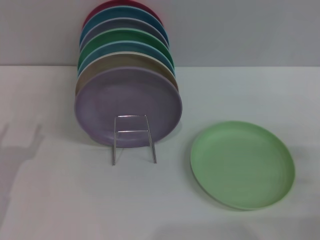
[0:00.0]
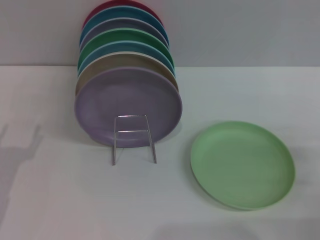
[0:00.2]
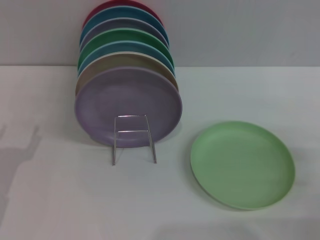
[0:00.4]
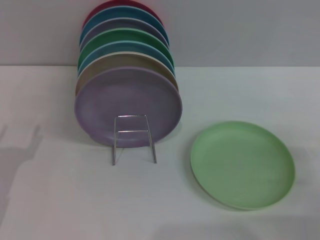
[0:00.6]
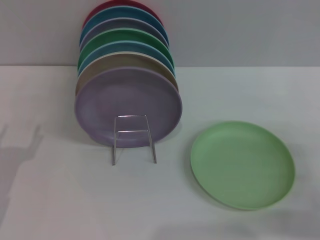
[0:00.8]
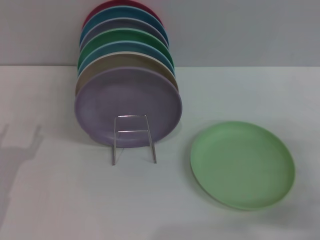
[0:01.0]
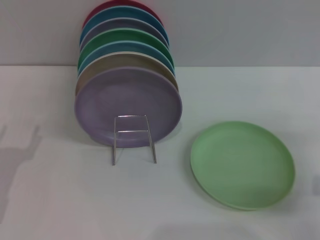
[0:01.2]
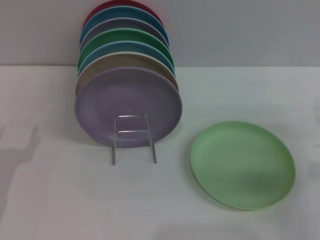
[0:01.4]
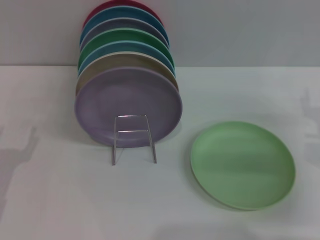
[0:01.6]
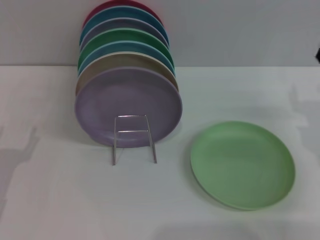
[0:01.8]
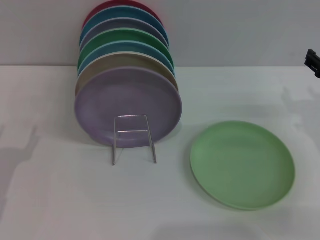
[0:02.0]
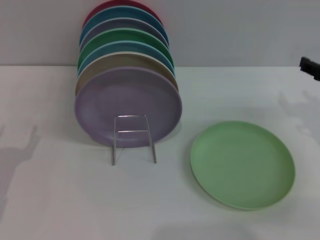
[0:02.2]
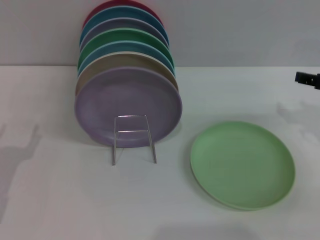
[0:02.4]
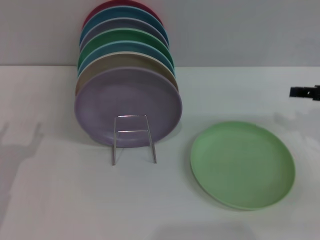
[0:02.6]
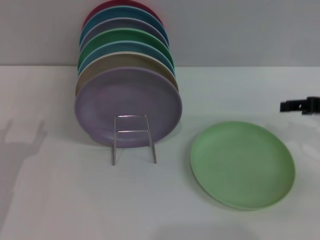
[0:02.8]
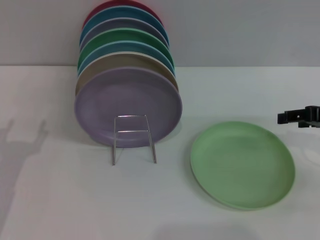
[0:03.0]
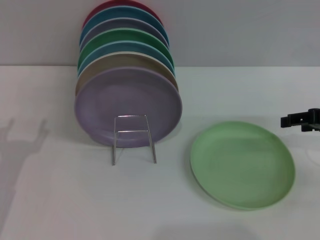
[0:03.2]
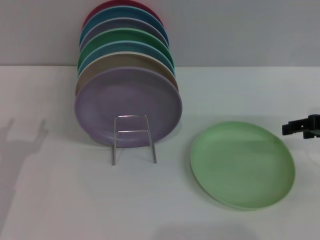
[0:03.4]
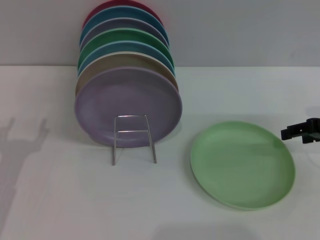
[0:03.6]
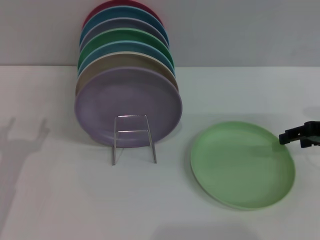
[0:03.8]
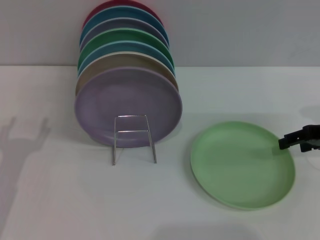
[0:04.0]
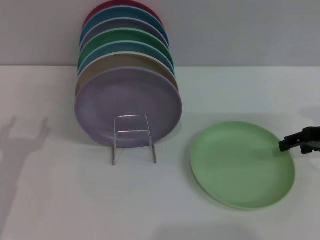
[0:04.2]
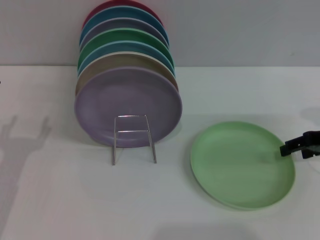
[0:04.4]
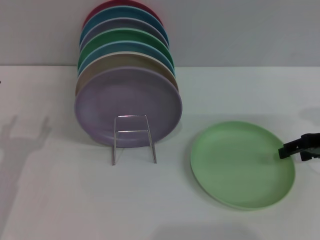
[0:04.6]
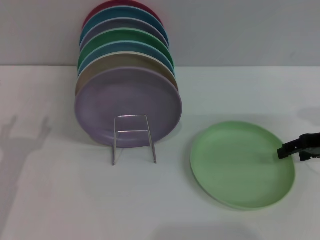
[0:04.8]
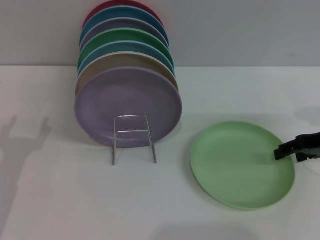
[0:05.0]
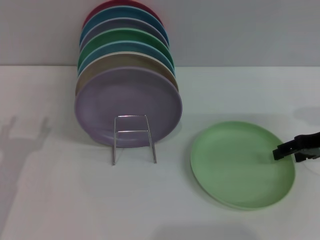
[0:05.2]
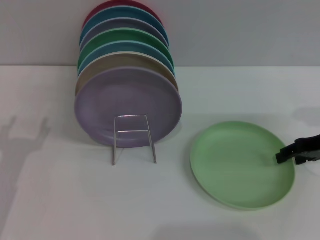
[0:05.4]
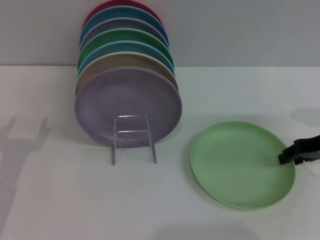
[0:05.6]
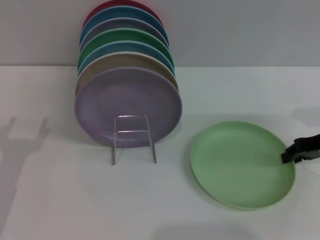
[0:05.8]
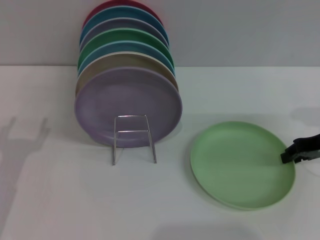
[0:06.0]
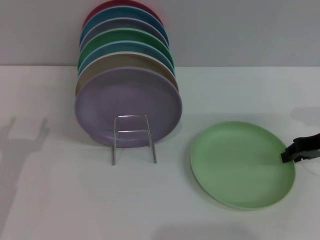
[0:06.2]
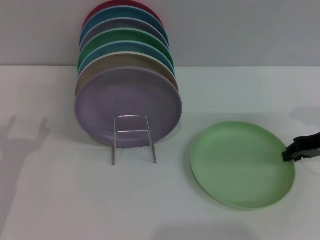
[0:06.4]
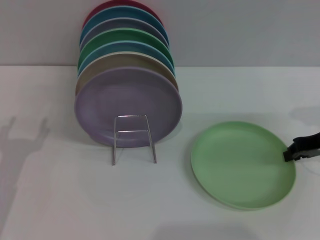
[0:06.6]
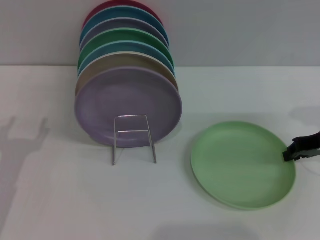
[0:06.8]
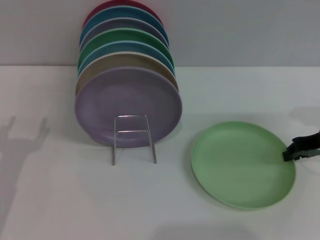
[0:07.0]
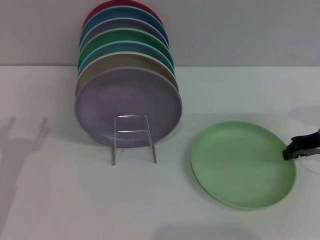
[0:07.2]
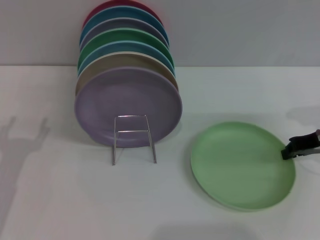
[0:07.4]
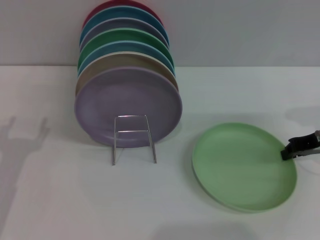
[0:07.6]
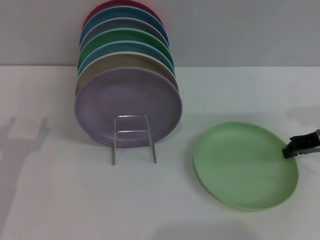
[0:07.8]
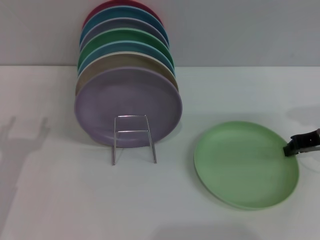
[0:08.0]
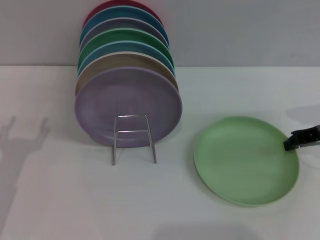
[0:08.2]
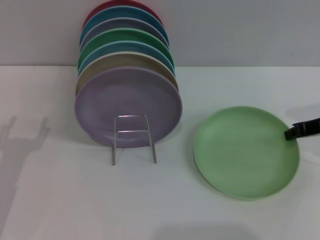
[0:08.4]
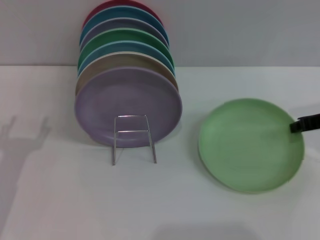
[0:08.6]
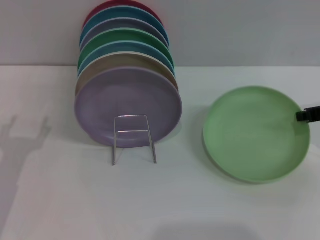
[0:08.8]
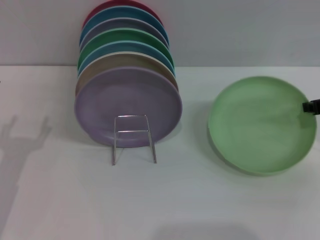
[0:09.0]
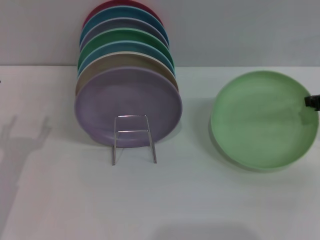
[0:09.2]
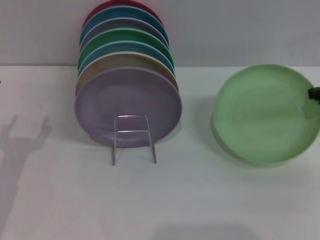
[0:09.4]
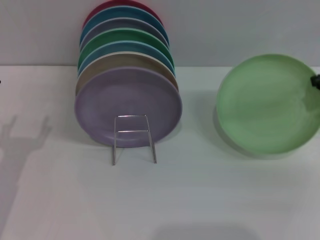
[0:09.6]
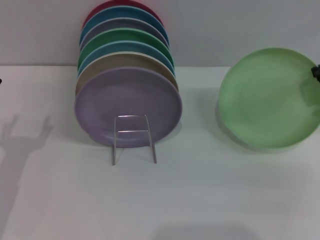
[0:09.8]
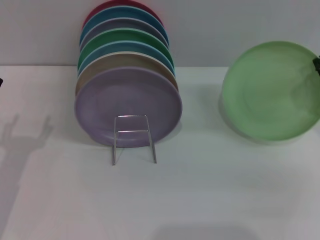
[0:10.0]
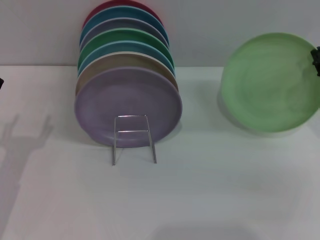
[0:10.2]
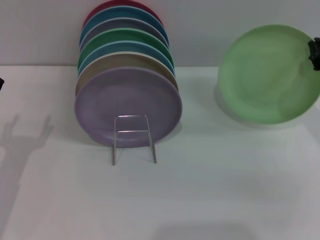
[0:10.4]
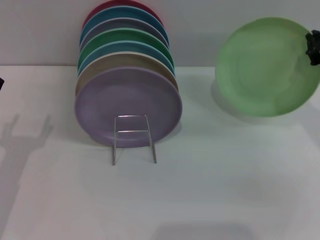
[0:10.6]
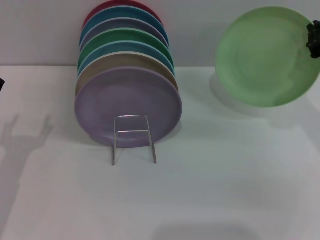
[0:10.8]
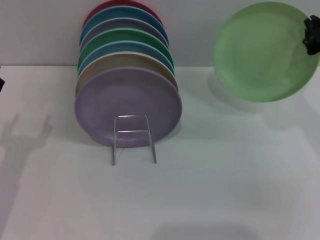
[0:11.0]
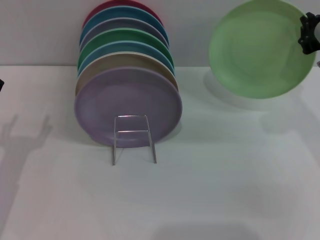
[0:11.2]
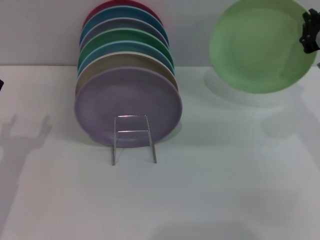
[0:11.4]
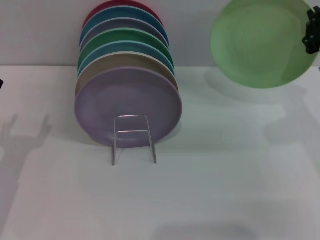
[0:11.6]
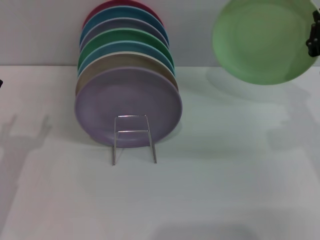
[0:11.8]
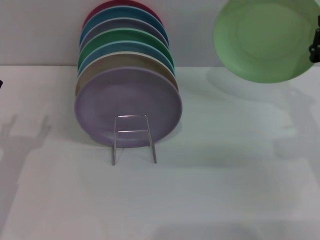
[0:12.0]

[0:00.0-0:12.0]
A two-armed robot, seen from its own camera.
Task of the whole recording: Grip the plate with one hand, pass it to the other, then set it on the shelf.
Step, 0:00.0 to 0:10.0: Pick up the plate with the right gripper.
0:00.0 to 0:01.6: The right gripper shifts about 10 cm forward.
0:01.6 to 0:03.0: The right gripper is displaced upward by roughly 5 cm.
0:03.0 to 0:04.4: The grippers stay close to where they were, moving slightly.
0:04.4 to 0:06.0: The right gripper closes its fingers.
0:06.0 to 0:07.6: Neither gripper changes place.
0:10.4 to 0:12.0: The right gripper moves downward, roughly 5 cm.

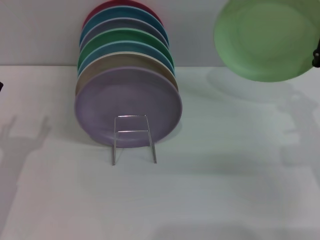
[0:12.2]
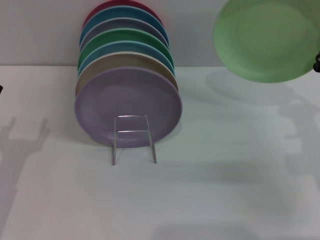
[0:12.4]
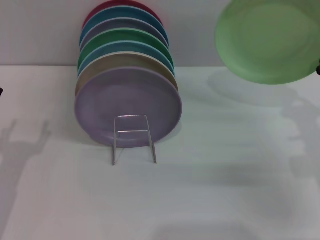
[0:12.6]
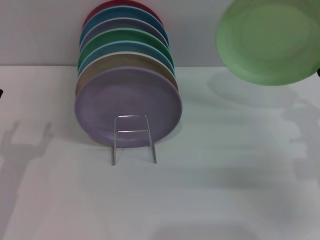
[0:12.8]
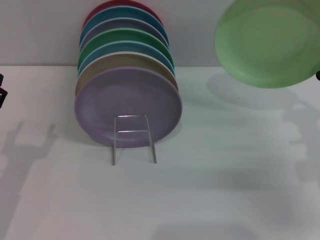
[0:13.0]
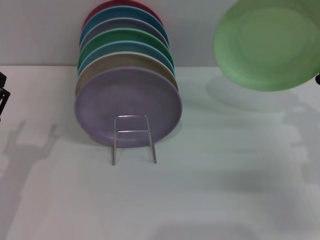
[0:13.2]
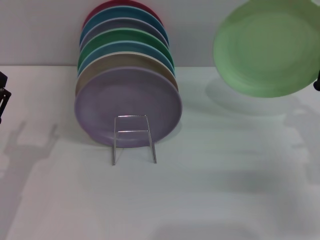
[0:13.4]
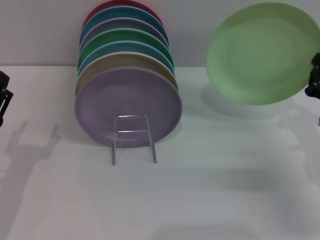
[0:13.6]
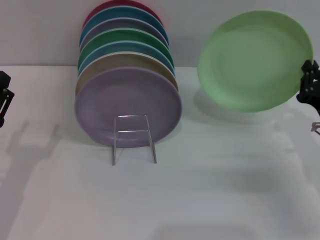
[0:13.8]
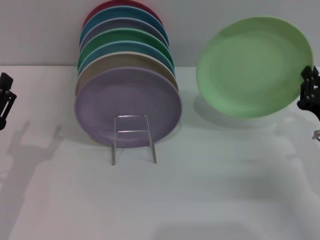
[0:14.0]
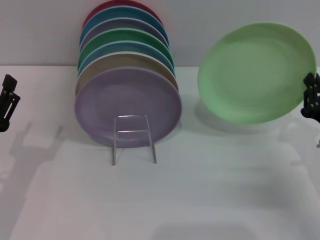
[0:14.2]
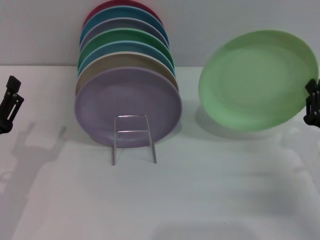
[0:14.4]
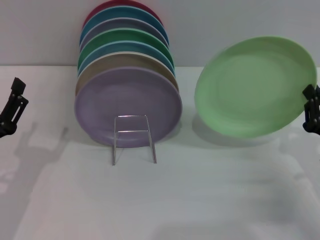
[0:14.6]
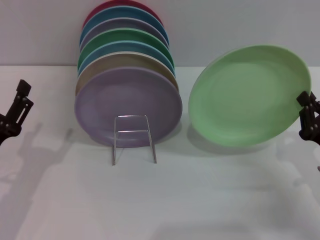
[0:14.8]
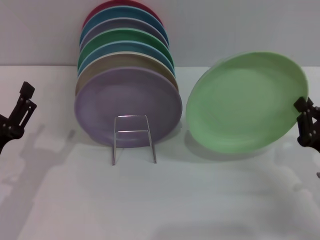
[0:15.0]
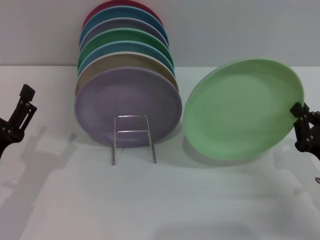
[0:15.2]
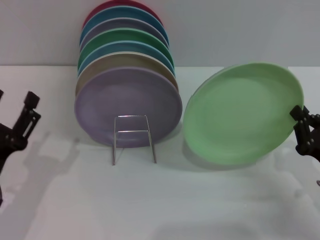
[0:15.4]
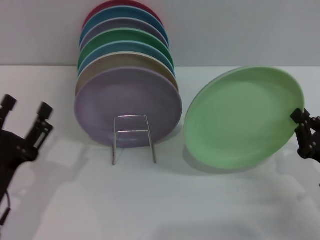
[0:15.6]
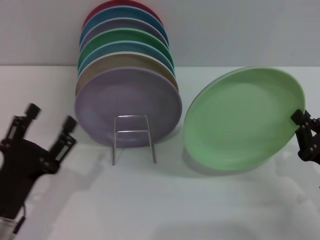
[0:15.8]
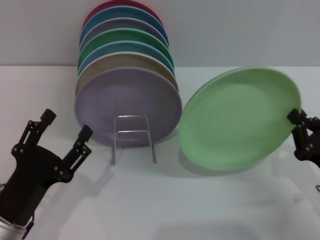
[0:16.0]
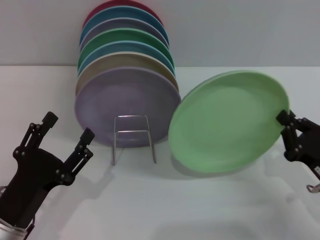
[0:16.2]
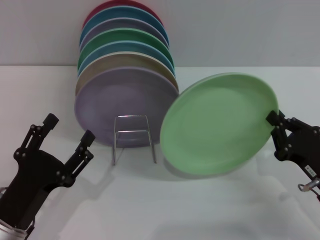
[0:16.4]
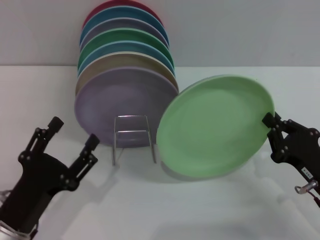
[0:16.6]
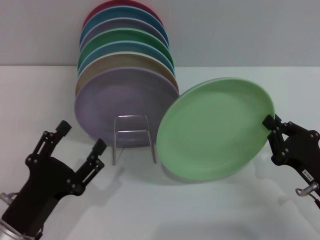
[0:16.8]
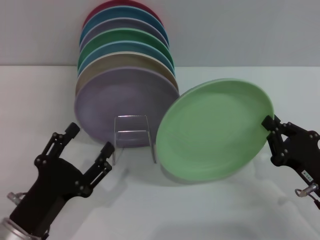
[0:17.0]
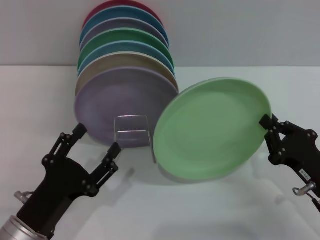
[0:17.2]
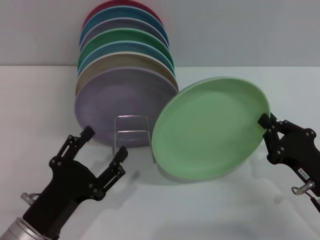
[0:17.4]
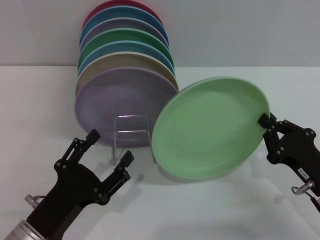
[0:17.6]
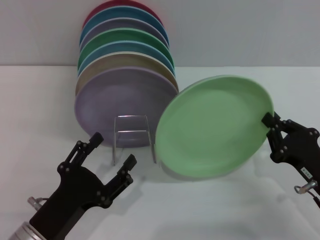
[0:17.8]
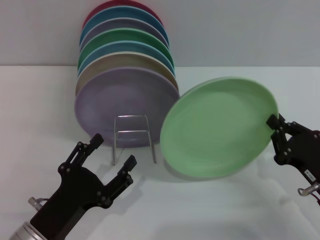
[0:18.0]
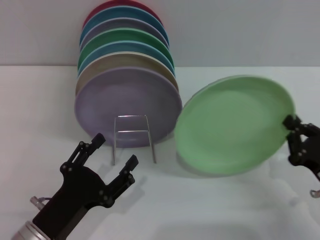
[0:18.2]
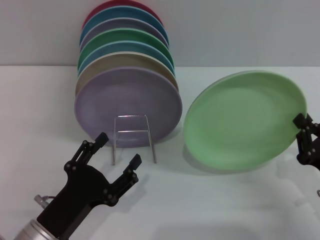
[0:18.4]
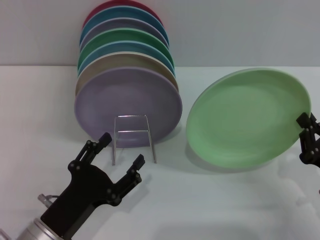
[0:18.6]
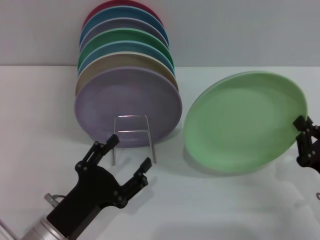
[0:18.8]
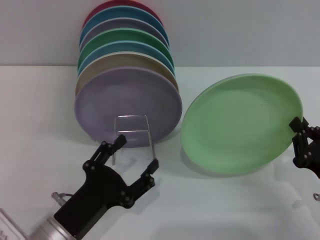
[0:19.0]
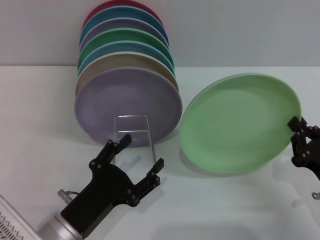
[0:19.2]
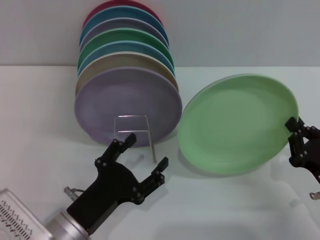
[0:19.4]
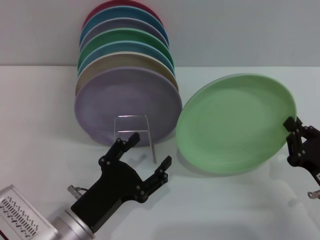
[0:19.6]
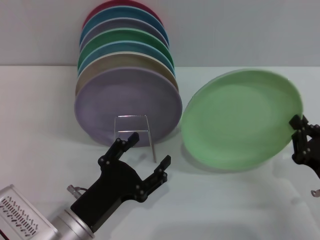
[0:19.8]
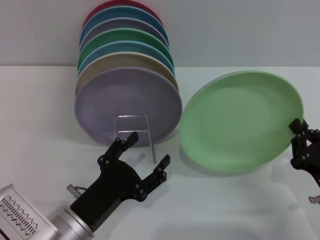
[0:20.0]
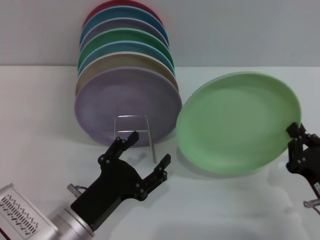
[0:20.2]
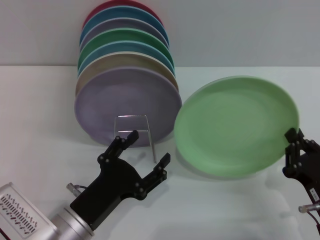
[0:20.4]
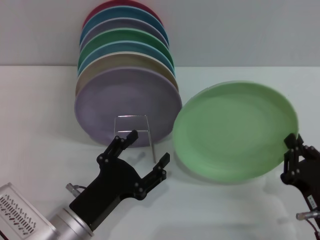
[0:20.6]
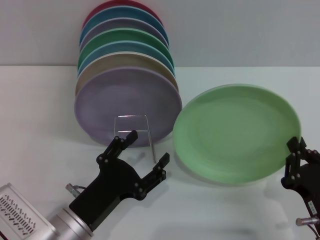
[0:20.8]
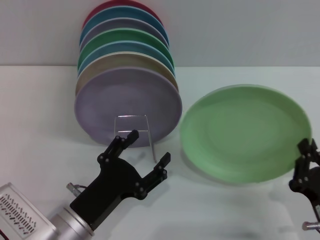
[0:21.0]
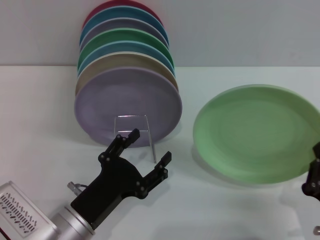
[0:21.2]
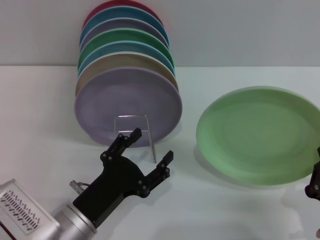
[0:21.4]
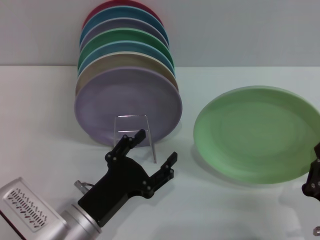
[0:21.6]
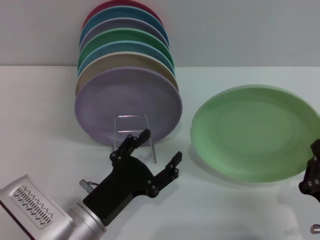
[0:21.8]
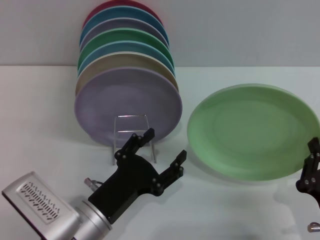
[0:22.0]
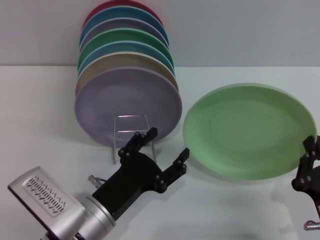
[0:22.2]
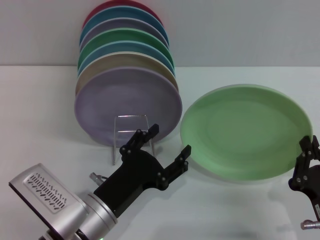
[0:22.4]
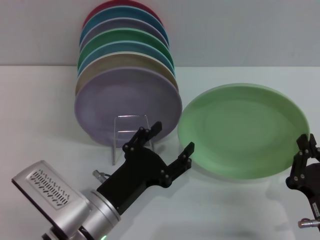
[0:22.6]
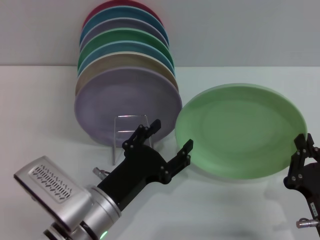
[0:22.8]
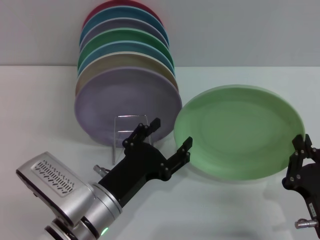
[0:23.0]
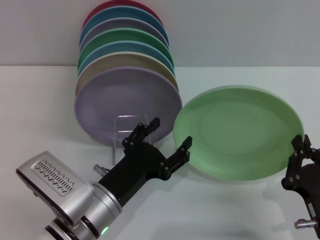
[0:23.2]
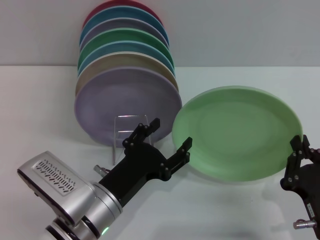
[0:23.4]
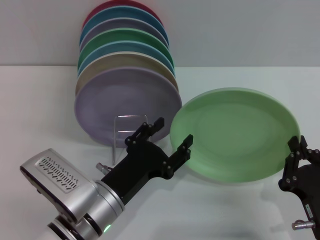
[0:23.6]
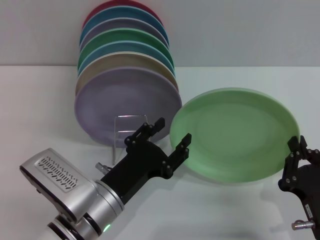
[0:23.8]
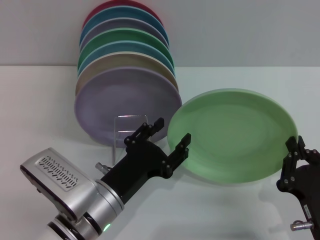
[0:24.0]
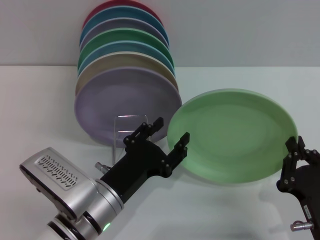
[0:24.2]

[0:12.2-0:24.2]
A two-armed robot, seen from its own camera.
Task of the whole recording: Grip the plate with one hand, pass it to the other, then set it on the shelf.
0:12.2 to 0:13.8: The right gripper goes some 5 cm downward.
0:13.8 to 0:15.2: The right gripper shifts approximately 5 cm backward.
0:15.2 to 0:16.6: The left gripper ends up about 5 cm from where it was.
0:16.6 to 0:18.2: The grippers make only small movements.
0:18.2 to 0:19.8: The grippers move only a little.
0:19.8 to 0:21.2: The right gripper heads backward, covering approximately 5 cm.
0:21.2 to 0:24.2: The grippers stay close to where they were, moving slightly.
